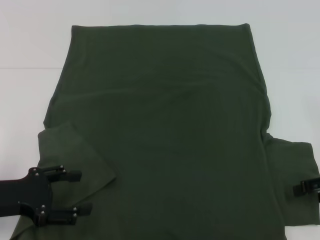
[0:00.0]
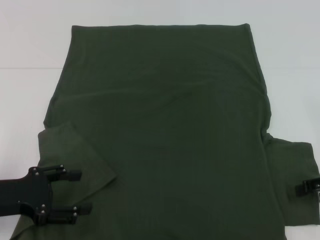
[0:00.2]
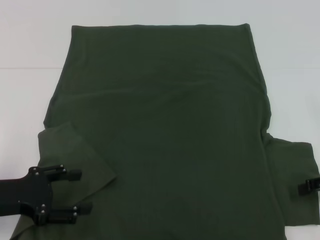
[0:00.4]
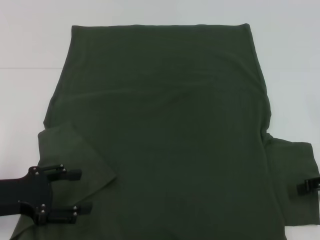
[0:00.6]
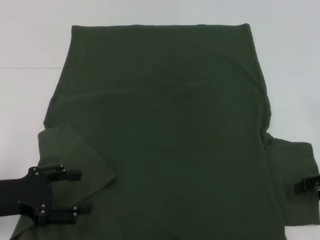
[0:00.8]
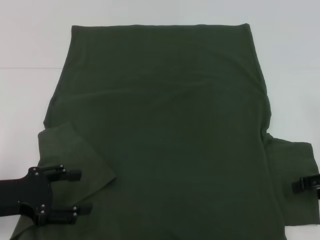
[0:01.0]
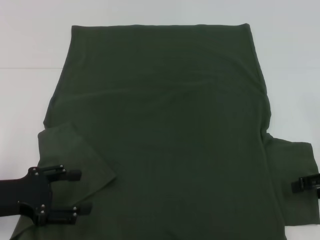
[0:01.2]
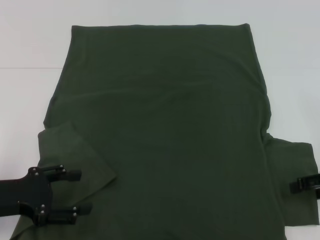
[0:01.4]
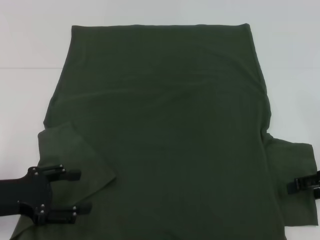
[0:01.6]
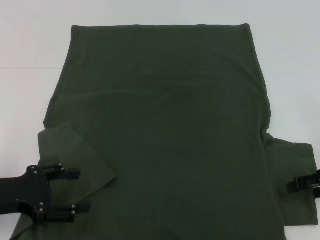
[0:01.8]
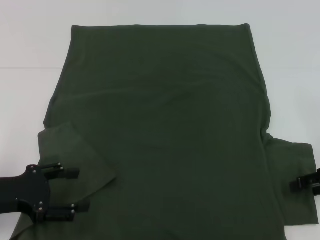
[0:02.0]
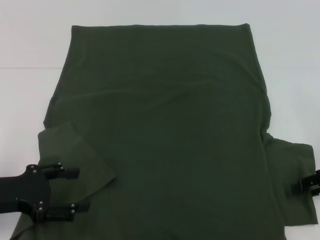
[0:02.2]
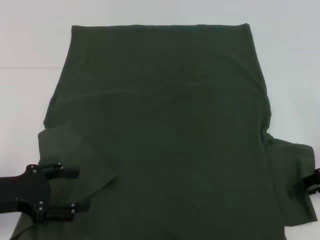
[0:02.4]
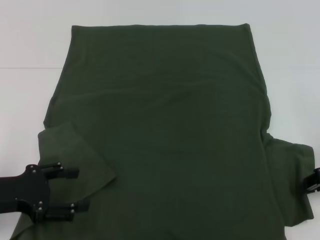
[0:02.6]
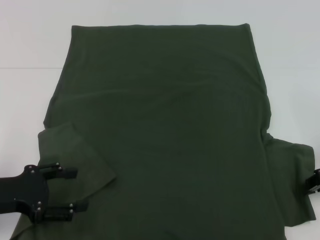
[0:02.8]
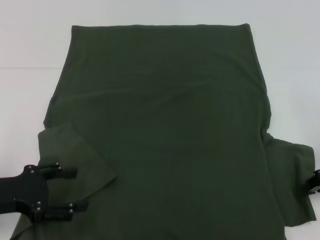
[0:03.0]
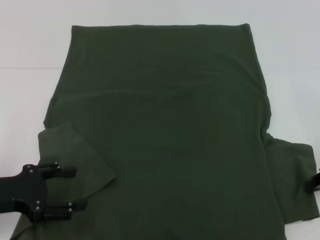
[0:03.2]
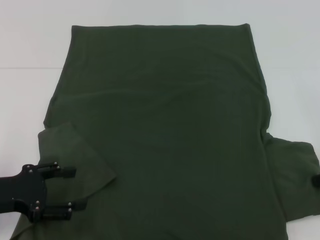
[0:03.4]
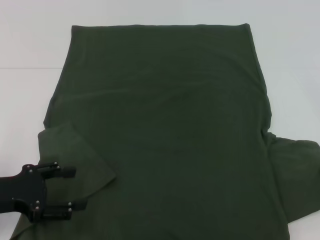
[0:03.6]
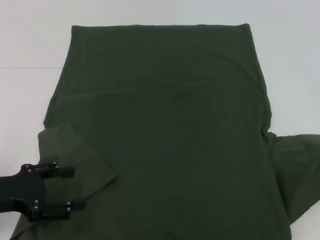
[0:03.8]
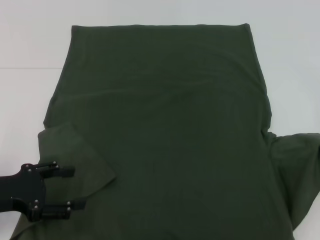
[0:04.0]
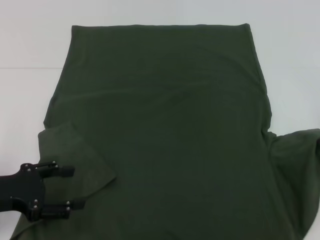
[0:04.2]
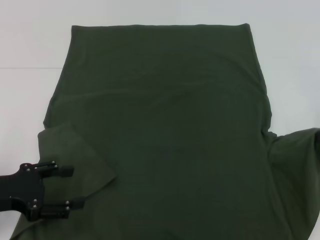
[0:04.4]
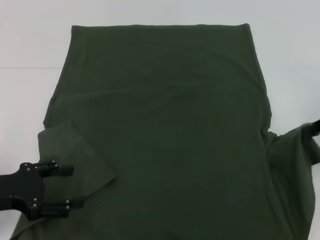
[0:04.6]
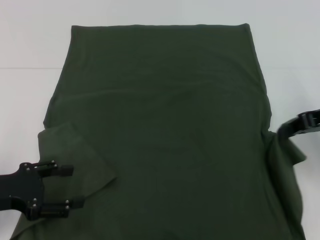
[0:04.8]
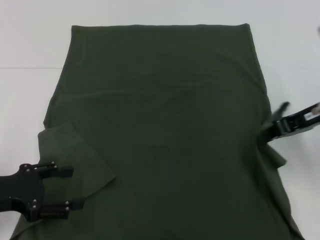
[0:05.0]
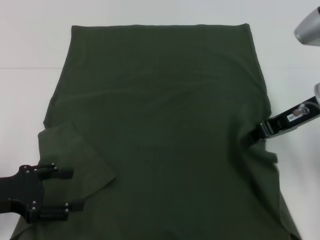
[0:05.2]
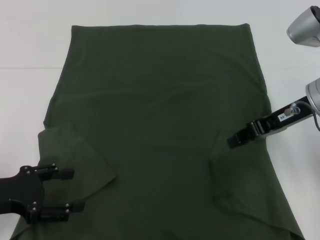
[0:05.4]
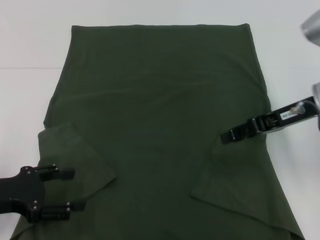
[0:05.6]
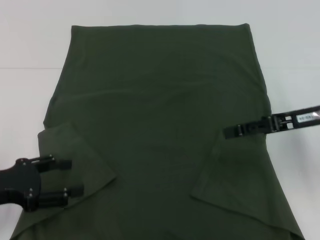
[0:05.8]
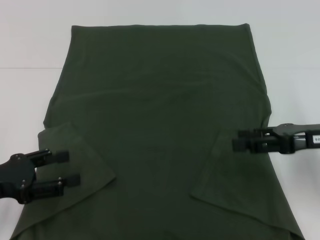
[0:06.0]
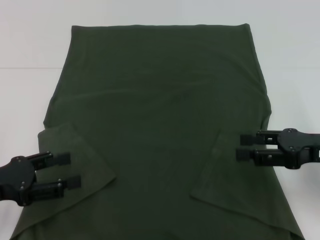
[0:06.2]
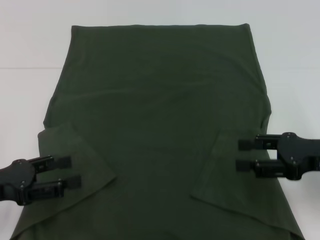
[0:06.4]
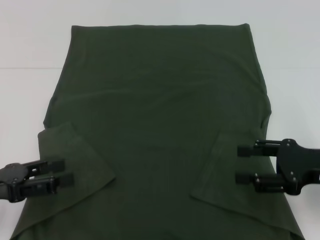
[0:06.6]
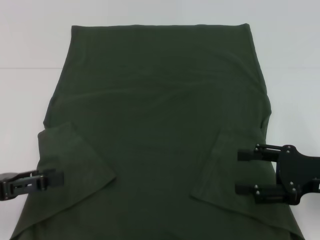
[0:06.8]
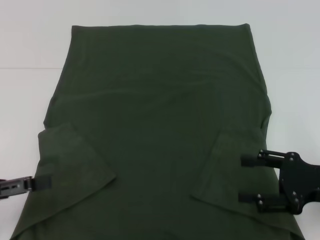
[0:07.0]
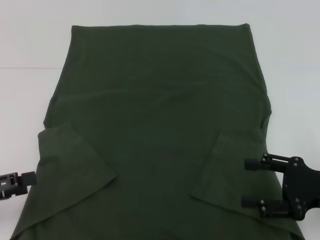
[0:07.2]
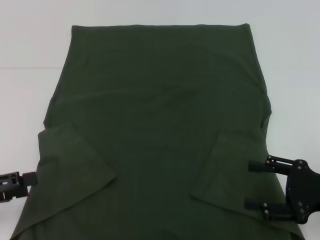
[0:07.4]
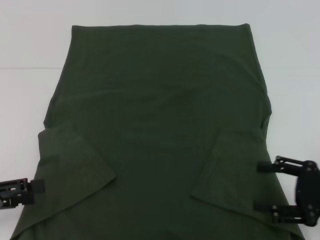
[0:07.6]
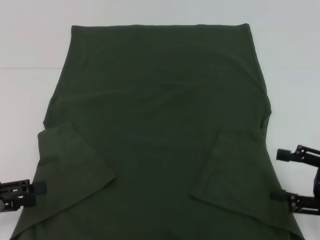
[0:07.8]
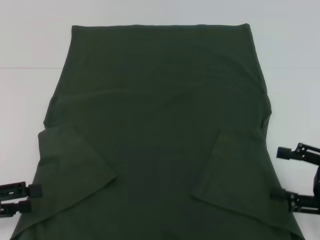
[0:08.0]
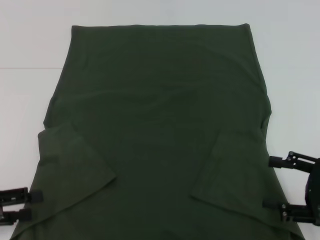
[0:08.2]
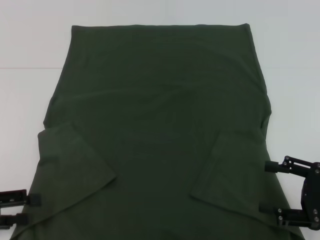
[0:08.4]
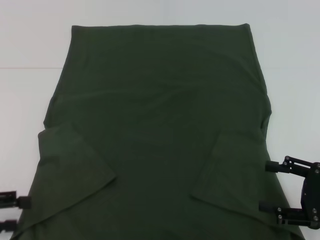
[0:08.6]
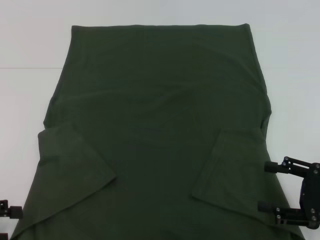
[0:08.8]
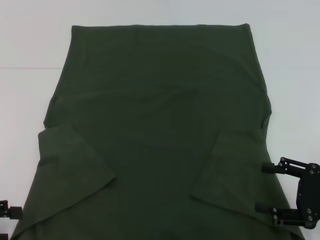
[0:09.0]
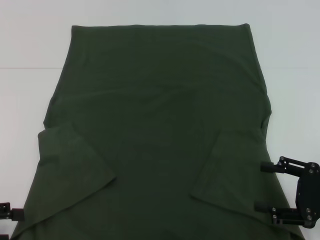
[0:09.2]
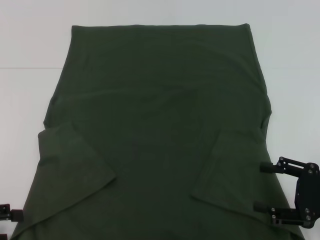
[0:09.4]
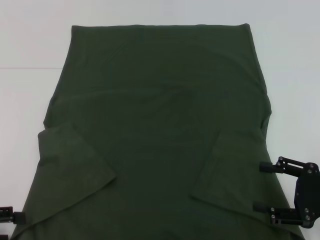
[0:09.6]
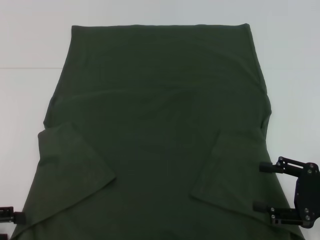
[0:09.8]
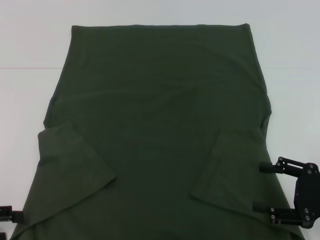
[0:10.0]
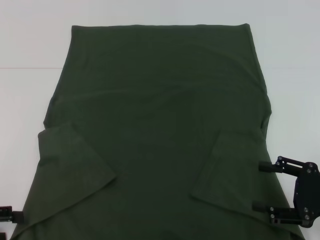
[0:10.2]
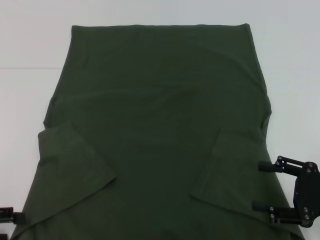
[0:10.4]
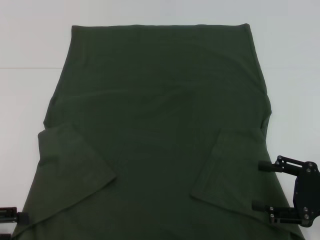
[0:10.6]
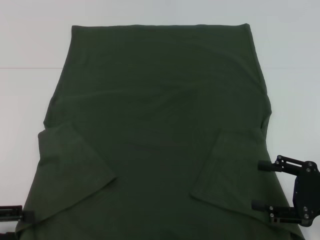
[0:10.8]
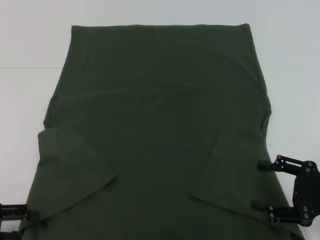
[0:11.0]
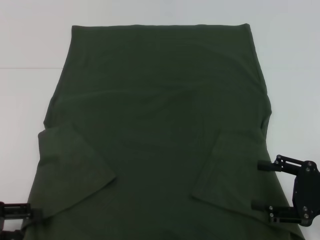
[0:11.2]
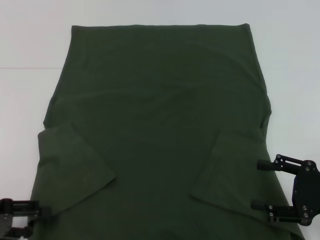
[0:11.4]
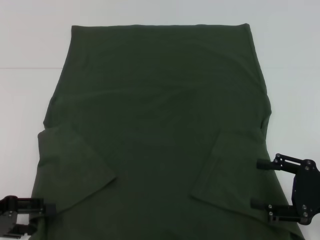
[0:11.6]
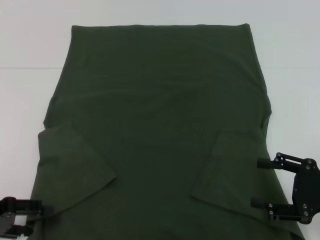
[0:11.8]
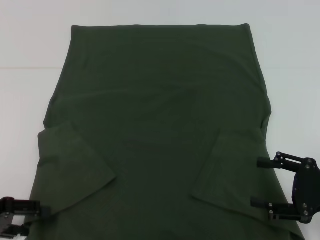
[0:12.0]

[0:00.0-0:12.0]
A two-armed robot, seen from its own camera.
Step, 0:00.0 to 0:06.0: Fold the bottom right sleeve with your right hand.
0:00.0 to 0:01.6: Both grippers stay put.
0:01.6 to 0:03.0: The right gripper closes its fingers.
0:03.0 to 0:04.4: The right gripper heads upward, covering some 5 cm.
0:04.4 to 0:06.0: The right gripper shifts about 5 cm to the left, and opens its fingers.
0:06.0 to 0:07.6: The right gripper is displaced backward by roughly 10 cm.
0:09.0 to 0:12.0: The grippers stay close to where they were, moving slightly.

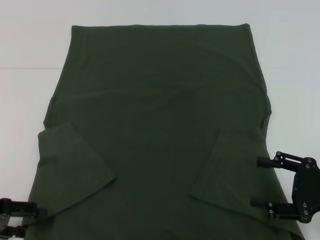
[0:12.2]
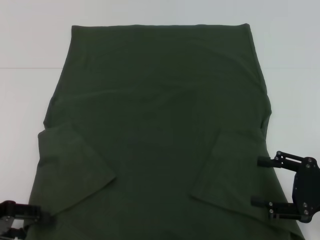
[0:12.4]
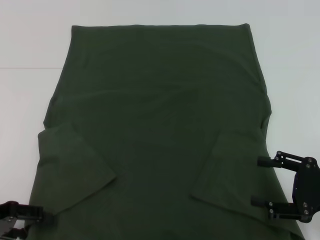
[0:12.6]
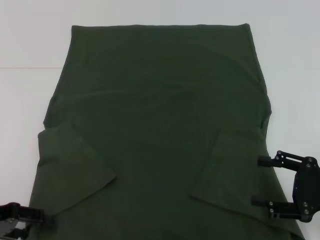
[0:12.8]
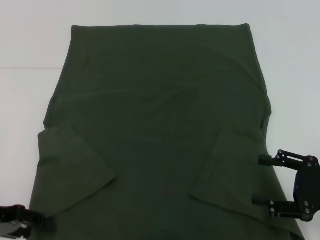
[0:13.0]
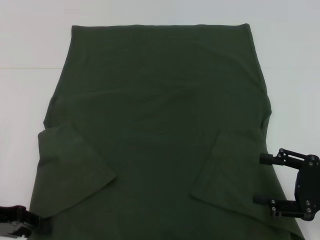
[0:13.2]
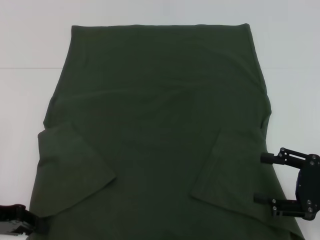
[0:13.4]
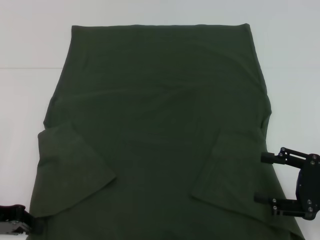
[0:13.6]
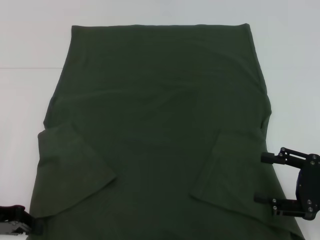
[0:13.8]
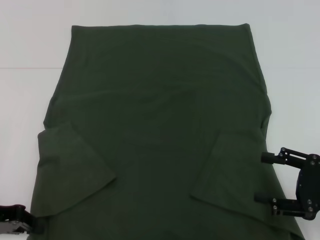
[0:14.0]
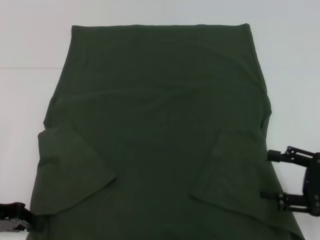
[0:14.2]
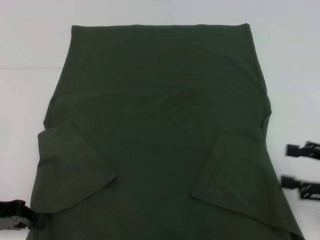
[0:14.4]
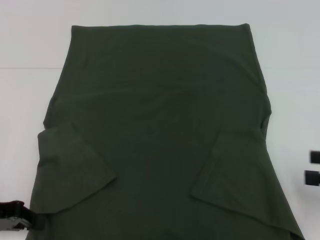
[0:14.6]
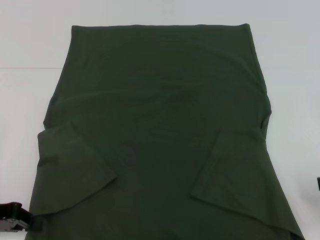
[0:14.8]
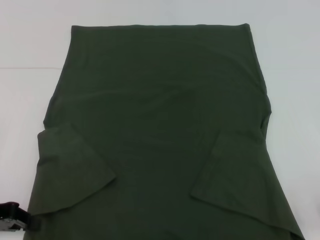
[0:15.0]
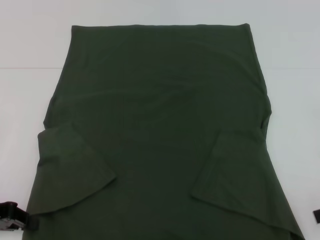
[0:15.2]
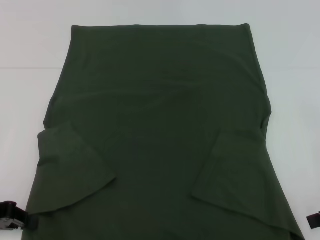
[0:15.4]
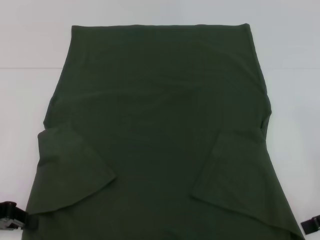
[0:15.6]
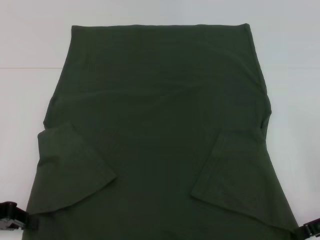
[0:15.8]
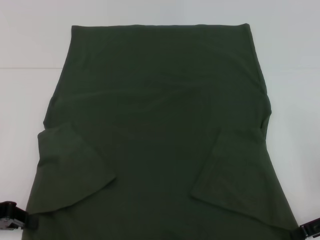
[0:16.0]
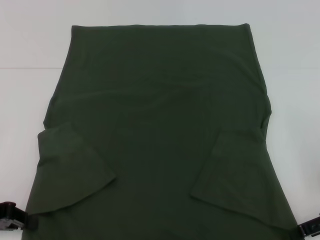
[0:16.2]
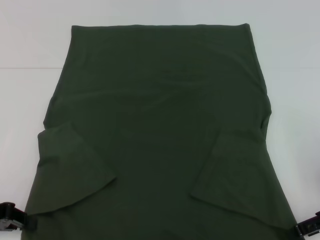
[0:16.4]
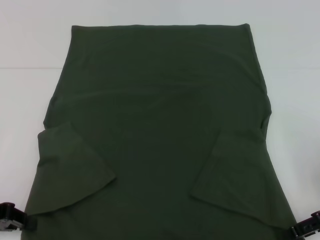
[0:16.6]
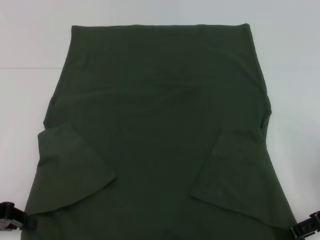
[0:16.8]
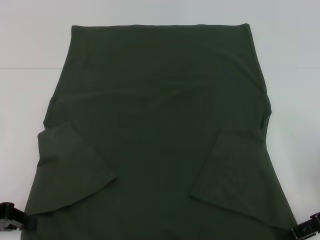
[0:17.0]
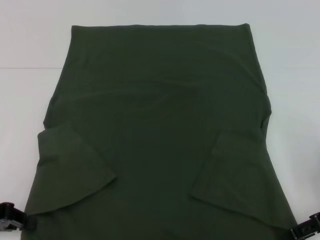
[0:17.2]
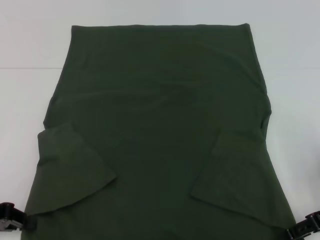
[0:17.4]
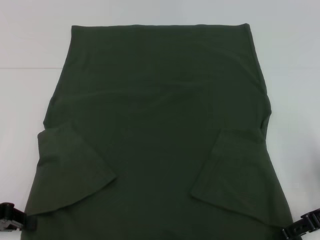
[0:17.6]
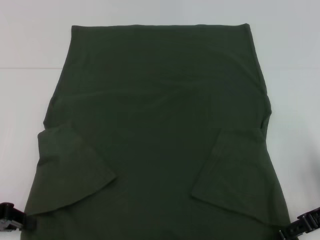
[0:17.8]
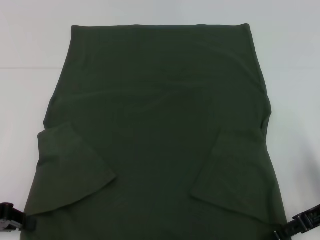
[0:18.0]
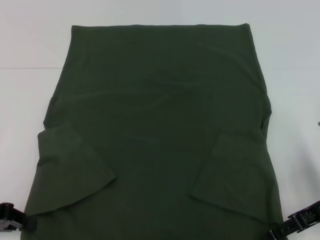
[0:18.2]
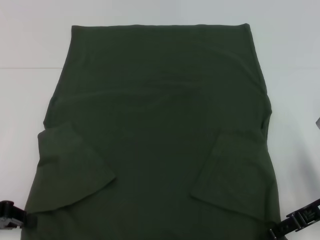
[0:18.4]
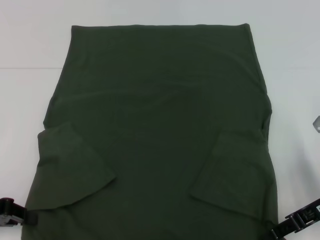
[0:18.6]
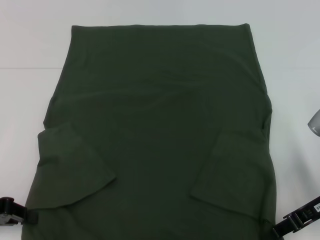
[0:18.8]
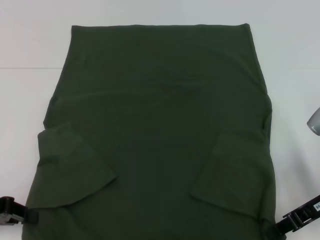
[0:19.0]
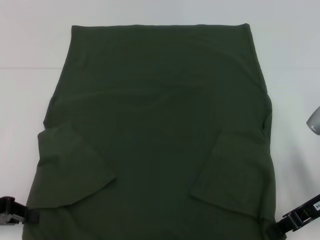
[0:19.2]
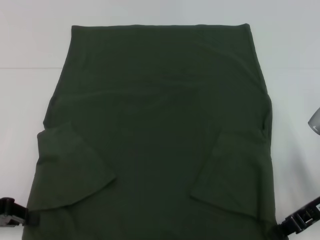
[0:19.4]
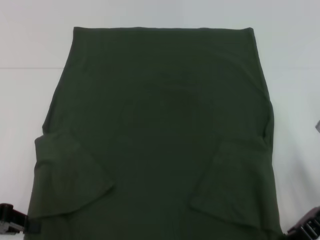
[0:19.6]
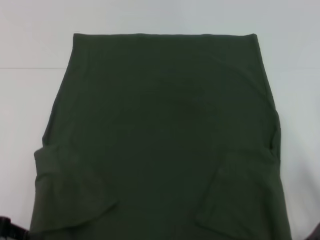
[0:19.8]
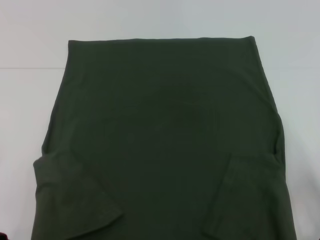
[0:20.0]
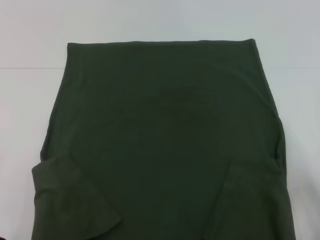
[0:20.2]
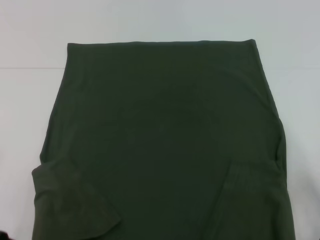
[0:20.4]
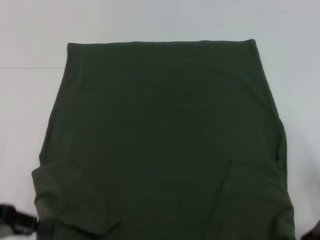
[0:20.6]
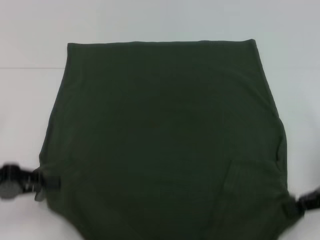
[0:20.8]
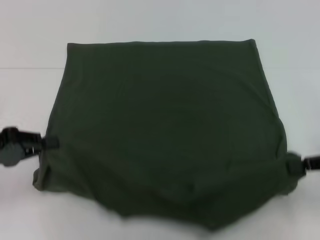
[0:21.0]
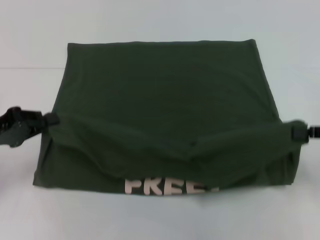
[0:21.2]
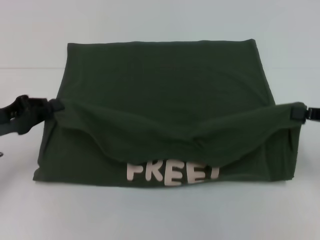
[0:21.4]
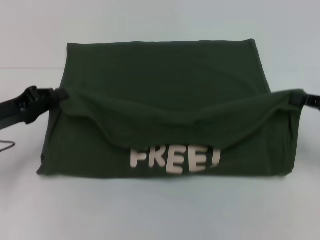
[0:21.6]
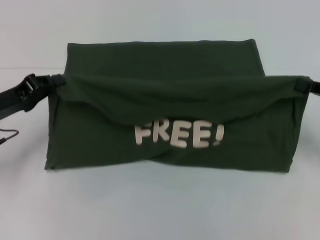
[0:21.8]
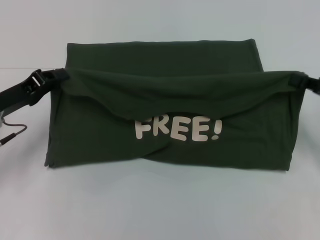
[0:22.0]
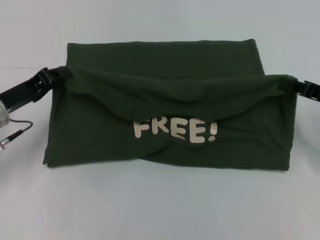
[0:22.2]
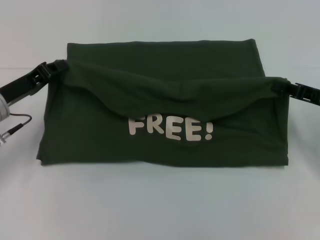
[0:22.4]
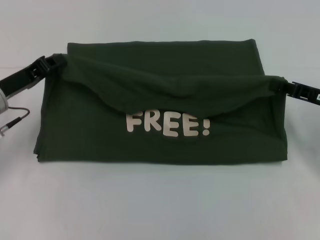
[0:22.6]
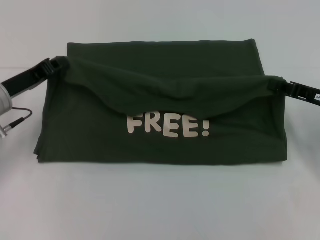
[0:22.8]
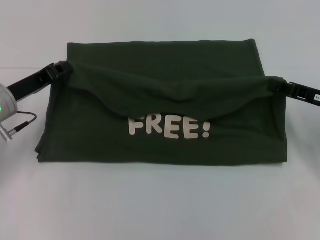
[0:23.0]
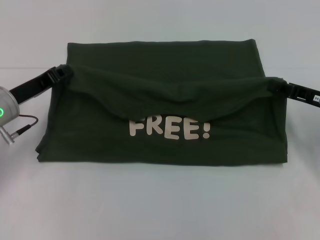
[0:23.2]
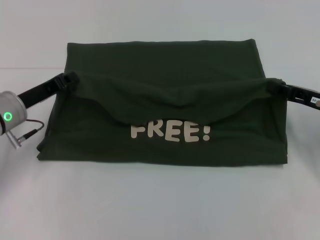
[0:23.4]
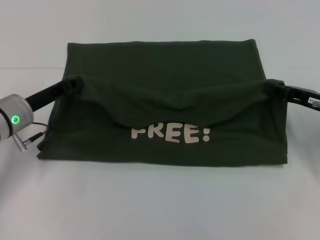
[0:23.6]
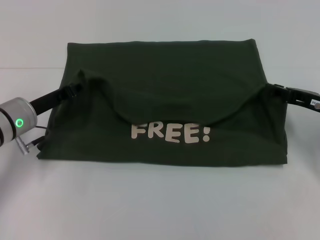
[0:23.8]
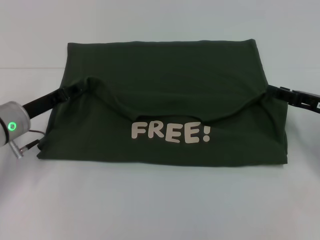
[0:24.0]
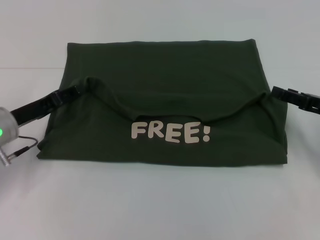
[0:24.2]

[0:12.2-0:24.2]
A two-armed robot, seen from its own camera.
Step, 0:12.2 to 0:14.6: Grab the bottom left corner with your left hand.
Step, 0:14.8 to 0:18.6: Grab the bottom right corner with your right hand.
0:12.2 to 0:13.8: The left gripper closes.
0:13.8 to 0:15.2: The right gripper moves upward, some 5 cm.
0:15.2 to 0:16.6: The right gripper changes place by roughly 5 cm.
0:16.6 to 0:18.2: The grippers move only a little.
0:18.2 to 0:19.8: The right gripper closes up.
0:19.8 to 0:21.2: The right gripper goes roughly 5 cm to the right; the left gripper is displaced forward by about 5 cm.
0:21.2 to 0:22.6: The left gripper travels forward and to the right by roughly 10 cm; the right gripper moves forward and downward, roughly 10 cm.
0:22.6 to 0:24.2: The right gripper opens up. Meanwhile the left gripper opens.
